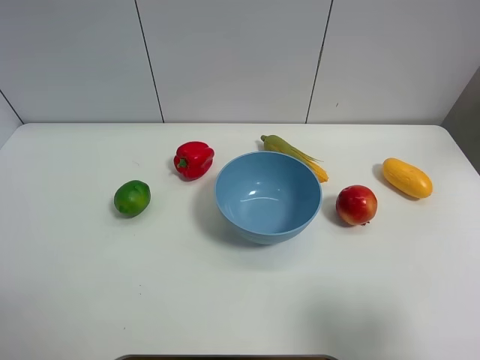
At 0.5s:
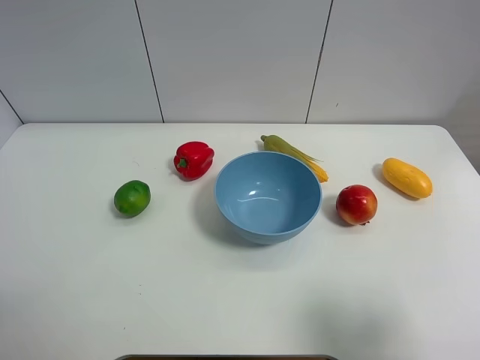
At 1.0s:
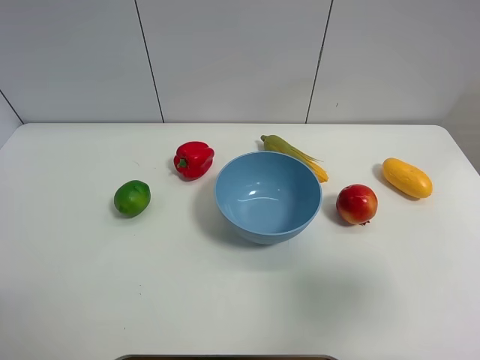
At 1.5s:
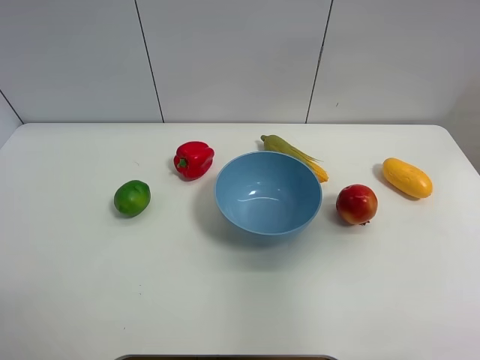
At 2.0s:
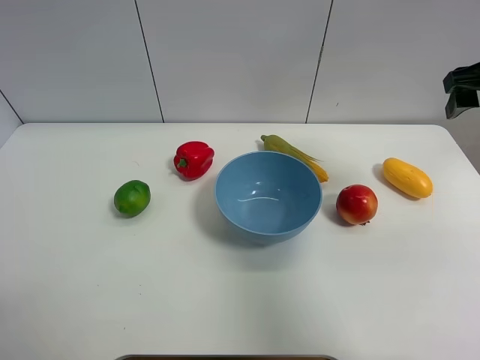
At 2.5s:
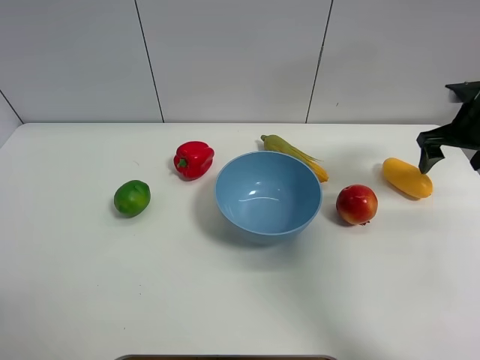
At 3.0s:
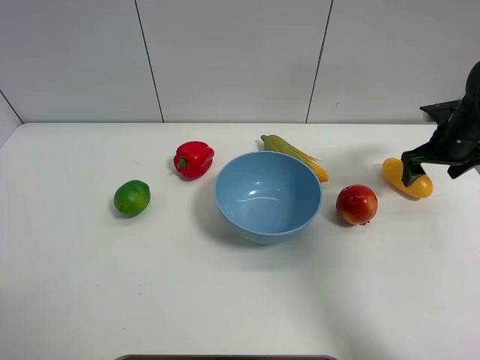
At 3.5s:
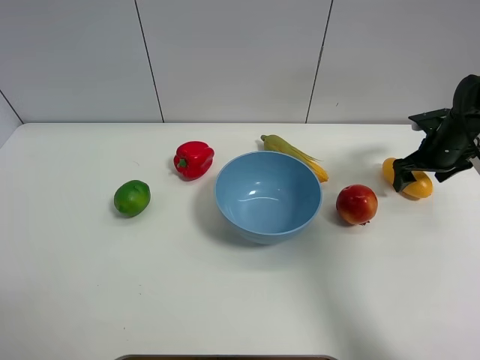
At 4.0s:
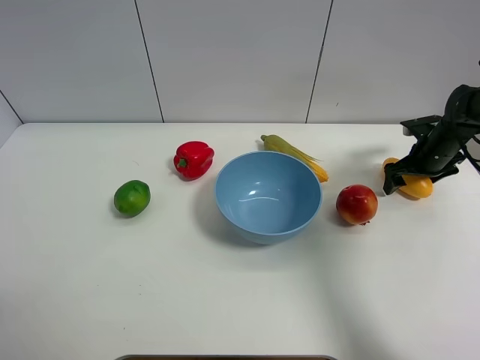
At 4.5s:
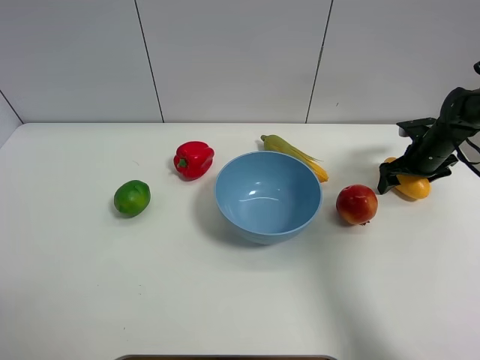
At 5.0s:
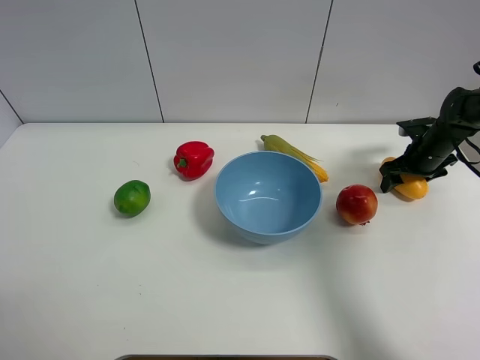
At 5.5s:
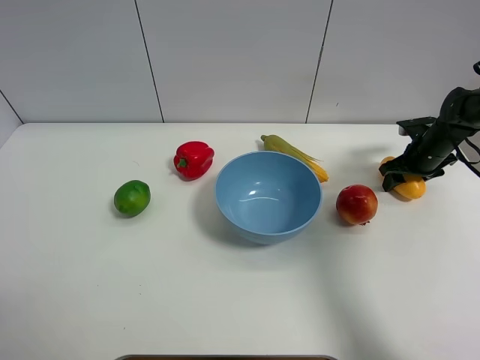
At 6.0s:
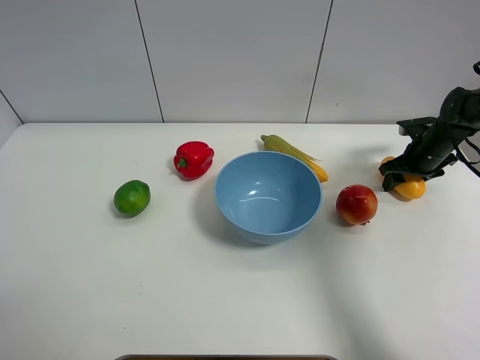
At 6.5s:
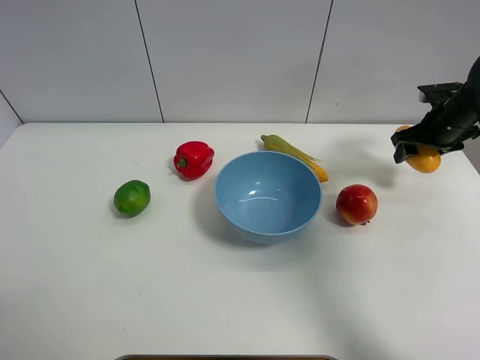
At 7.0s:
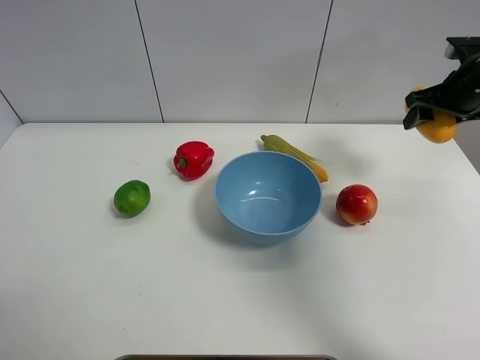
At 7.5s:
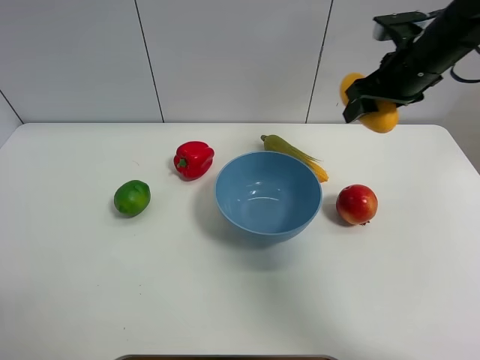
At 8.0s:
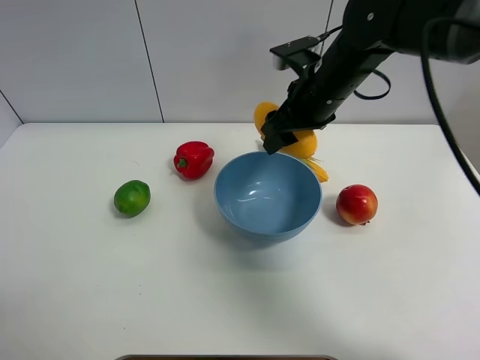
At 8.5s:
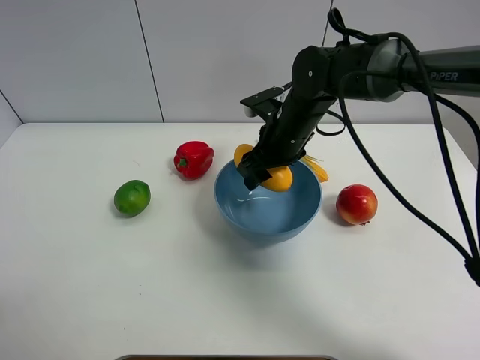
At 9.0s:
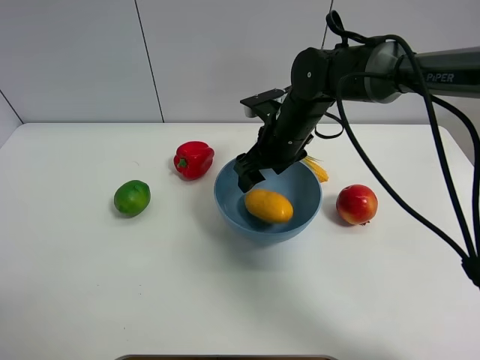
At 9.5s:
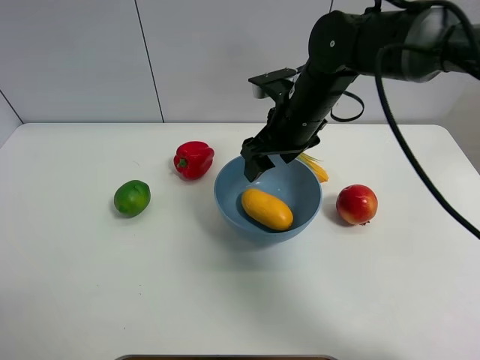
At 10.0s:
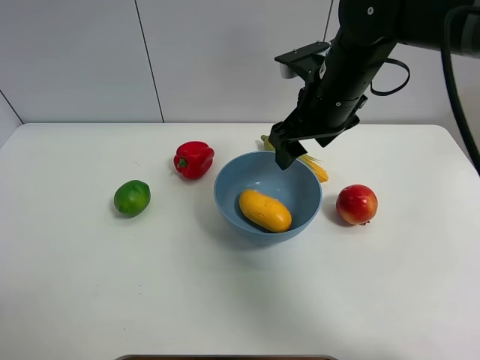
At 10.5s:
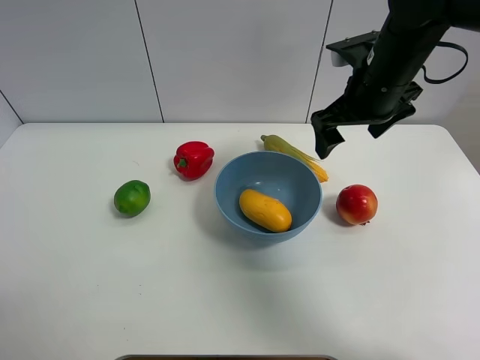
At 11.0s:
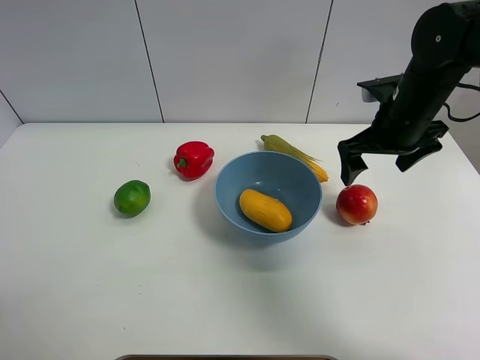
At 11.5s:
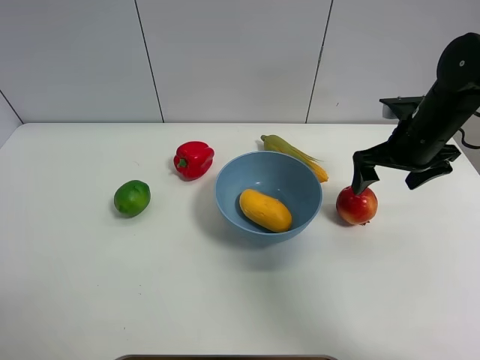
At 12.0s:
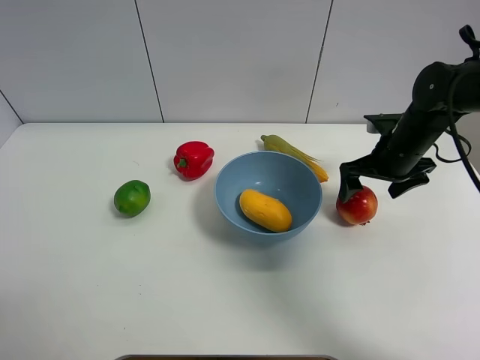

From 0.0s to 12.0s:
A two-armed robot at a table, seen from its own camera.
Task of the whole recording: Put the three fruits on the table into a bowl.
Step, from 0.0s to 5.0s: Grasp the mango with right gripper.
Step, from 5.5s to 9.0s: Place the mango in the blue bowl with right gripper.
From 0.0s to 2.0s: The right gripper is displaced forward by roughly 30 cm.
From 2.0s to 4.0s: The right gripper goes some 25 cm downward and forward.
From 4.0s to 6.0s: The right gripper closes.
From 6.0s to 8.0s: The right gripper moves to the left and upward, approximately 30 cm.
From 8.0s to 10.0s: The right gripper reaches about 5 cm downward, then returns, and opens up.
From 10.0s to 12.0s: The right gripper is displaced to the right and downward by roughly 20 cm, and opens up.

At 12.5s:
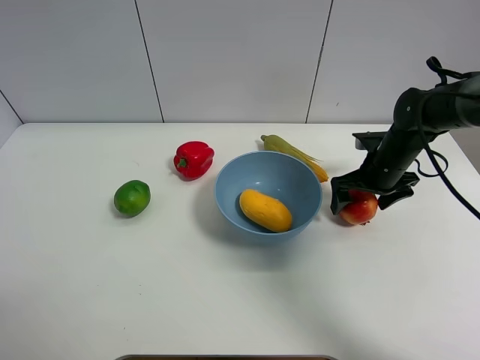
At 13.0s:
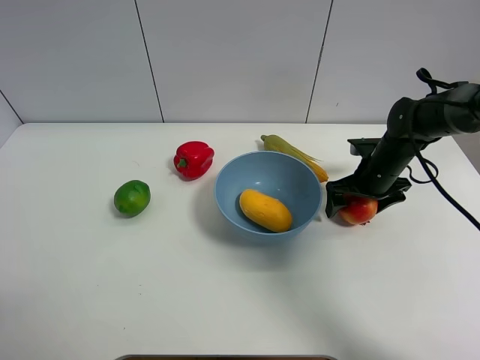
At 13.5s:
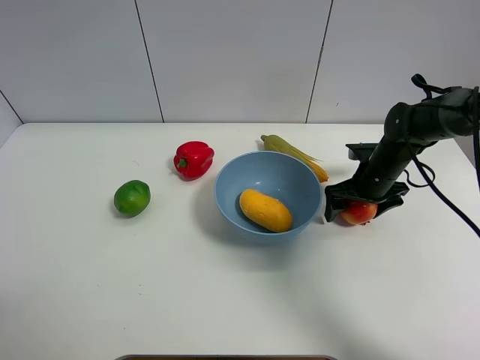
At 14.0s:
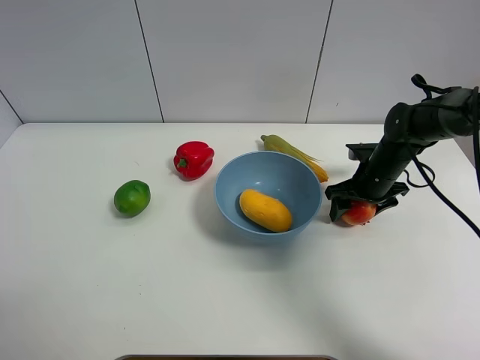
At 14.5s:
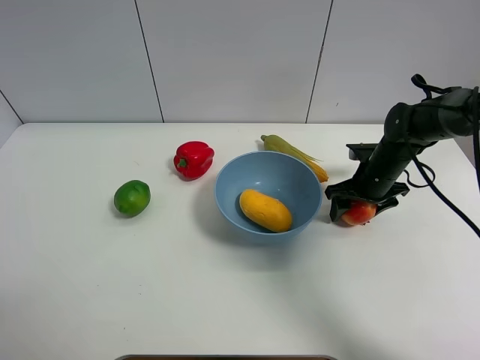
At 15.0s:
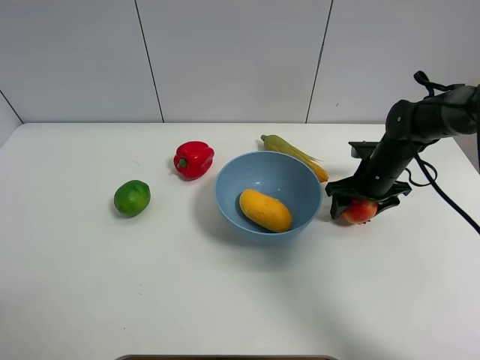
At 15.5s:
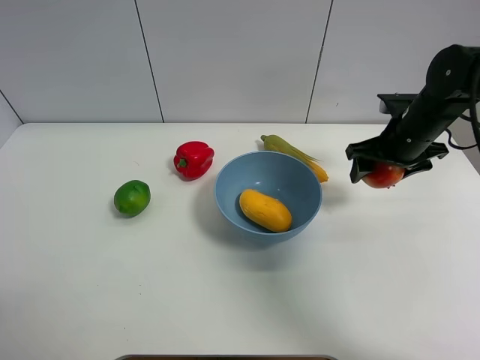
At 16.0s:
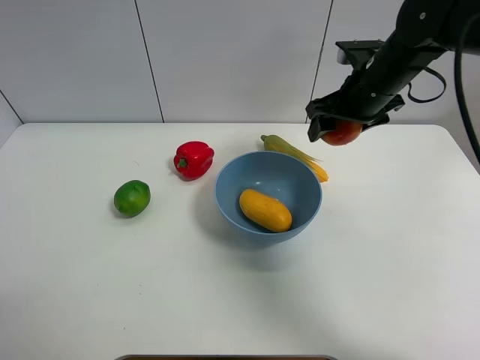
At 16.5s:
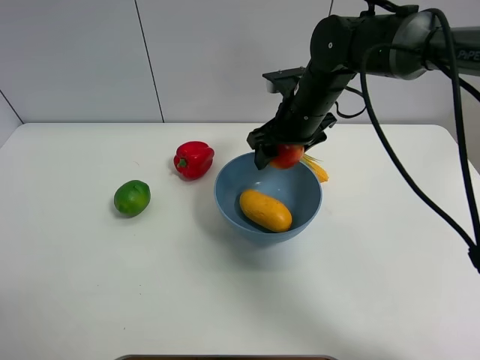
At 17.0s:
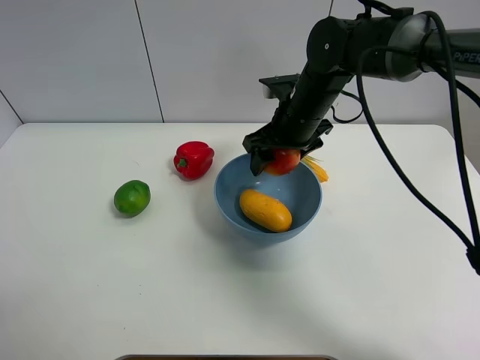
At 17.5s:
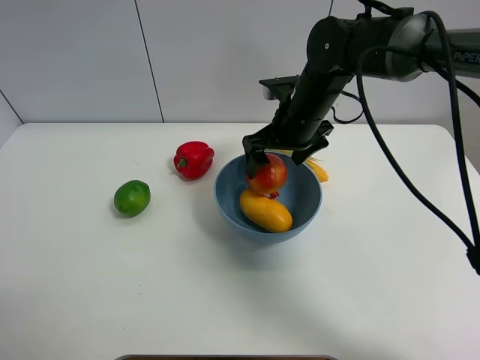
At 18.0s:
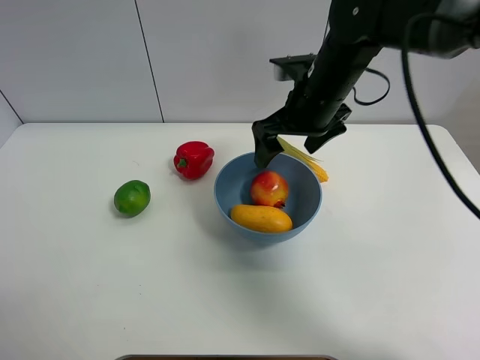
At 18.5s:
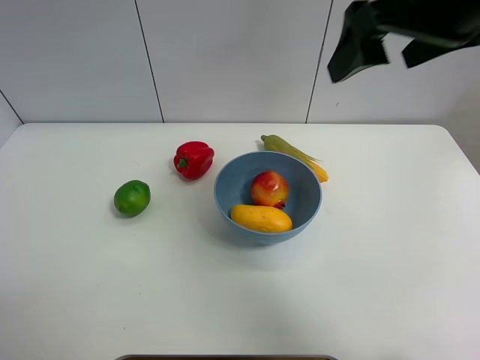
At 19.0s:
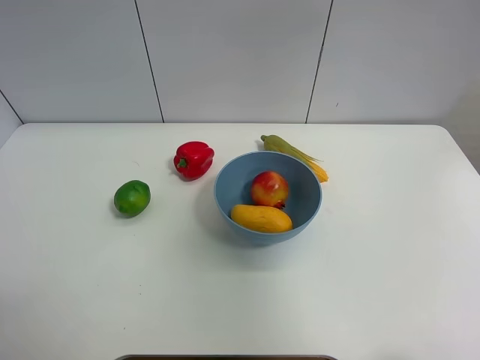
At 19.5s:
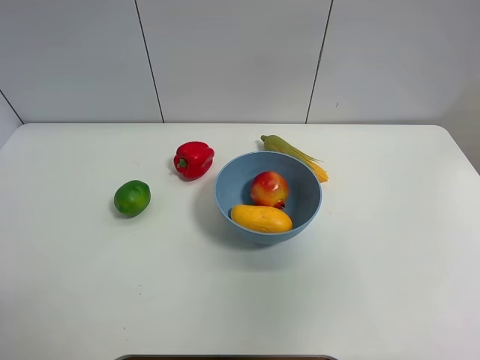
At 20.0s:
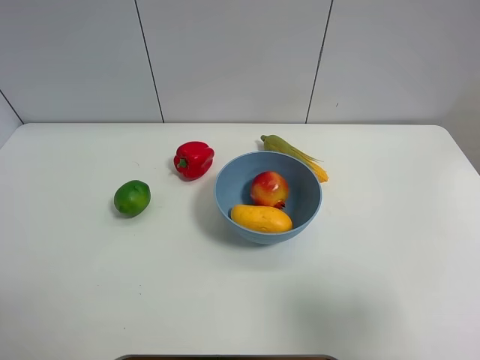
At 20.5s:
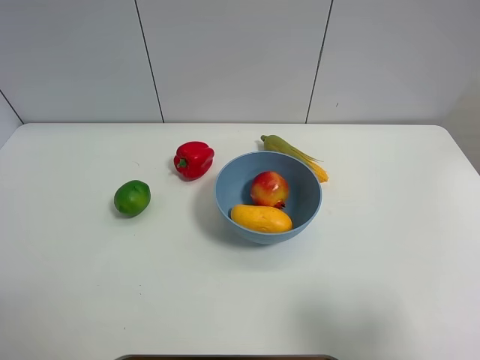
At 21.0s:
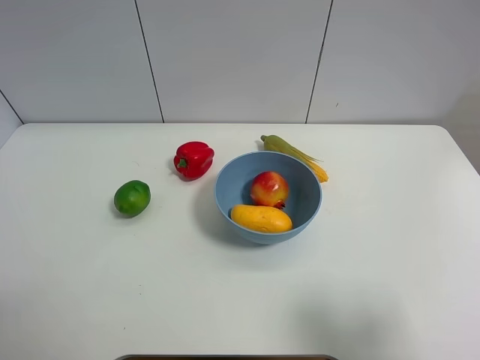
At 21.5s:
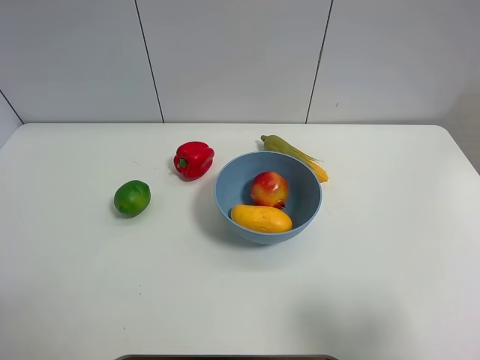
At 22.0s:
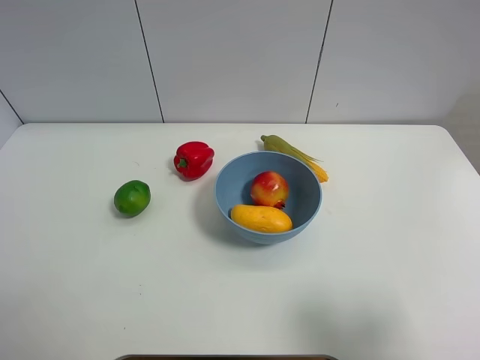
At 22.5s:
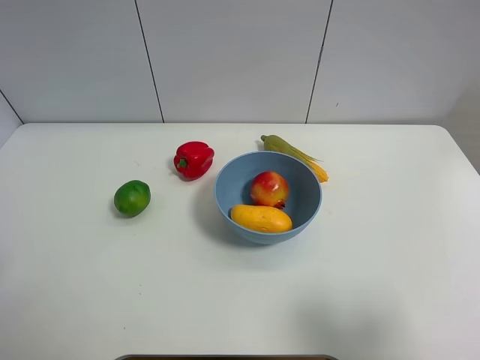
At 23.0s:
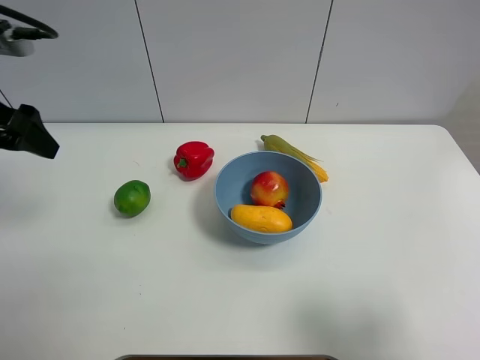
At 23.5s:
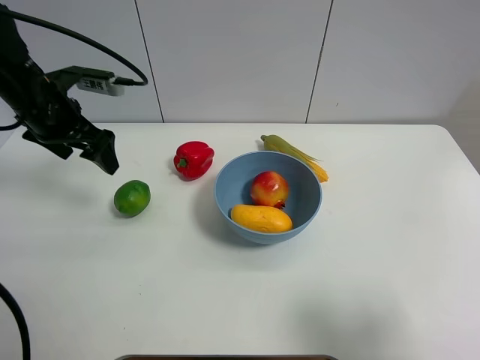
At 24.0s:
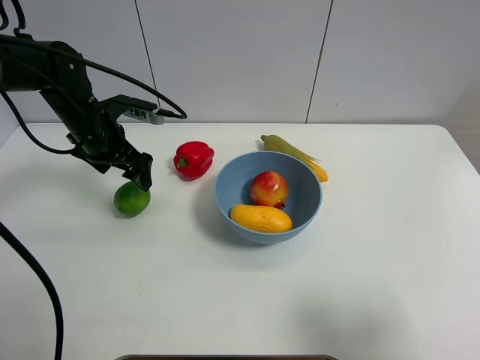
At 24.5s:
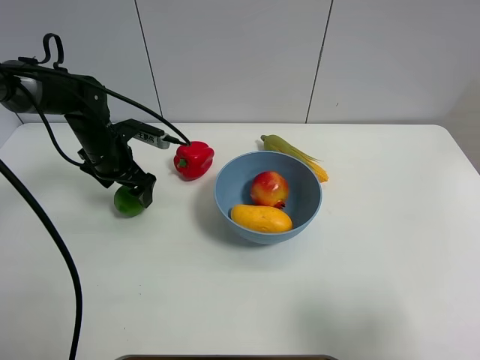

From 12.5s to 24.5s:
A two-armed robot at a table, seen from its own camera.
Task of the whole recording: Put the three fruits on the table into a bowl.
Step, from 14.0s to 18.0s: Place the pomegranate in the blue bowl with right gripper.
From 12.5s to 14.5s: The right gripper closes its fingers.
From 14.5s to 16.5s: The right gripper goes about 20 cm to the left and upward.
From 16.5s to 18.5s: The right gripper is displaced upward, backward and to the right by approximately 30 cm, and opens its fingers.
From 18.5s to 20.5s: The right gripper is displaced backward, downward and to the right by some 30 cm.
From 22.5s to 24.5s: The left gripper moves forward and downward, some 35 cm.

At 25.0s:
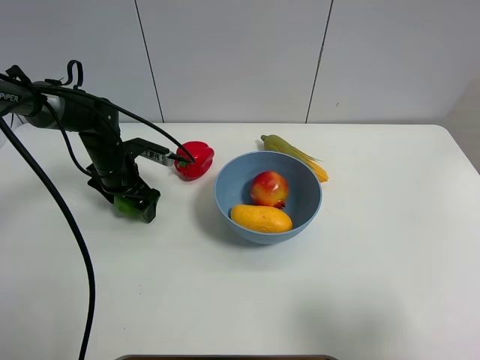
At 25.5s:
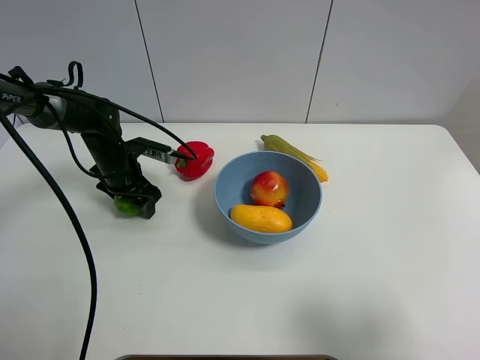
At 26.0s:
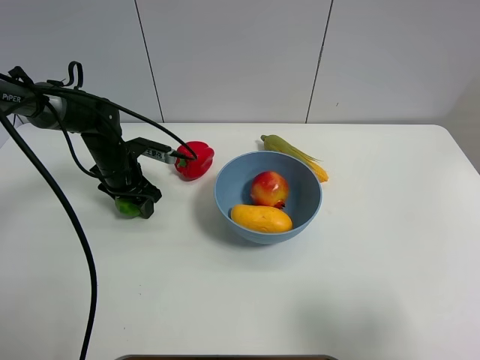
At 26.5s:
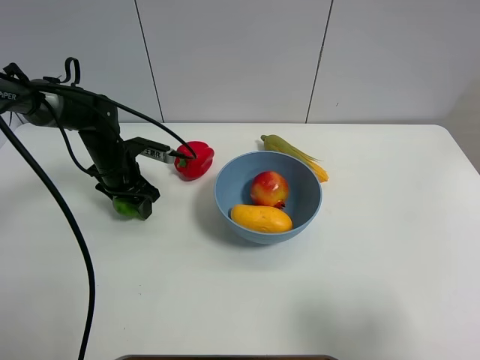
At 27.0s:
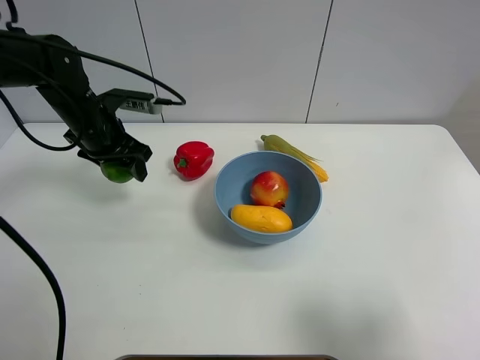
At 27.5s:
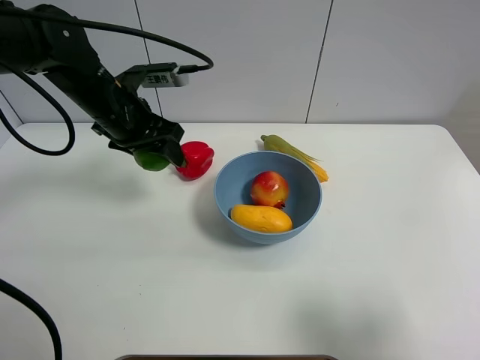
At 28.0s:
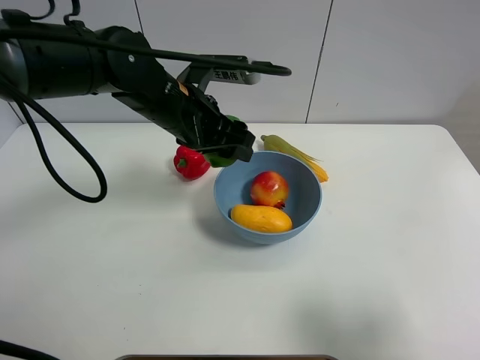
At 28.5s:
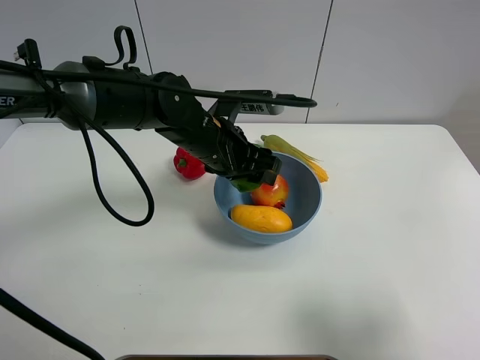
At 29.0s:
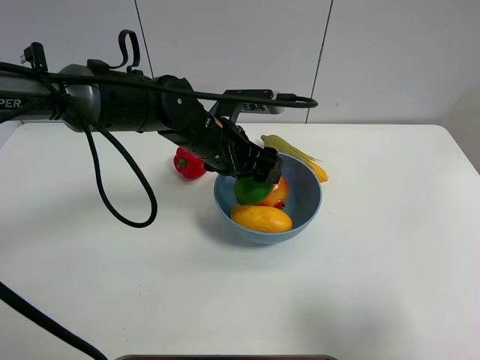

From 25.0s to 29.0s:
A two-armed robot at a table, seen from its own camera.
Task of the whole recording: Put the three fruits on the table into a bowl.
From 25.0s to 27.0s: The left gripper is displaced upward by approximately 10 cm, and closes.
From 27.0s to 29.0s: The left gripper is displaced to the right by some 20 cm, and opens up.
